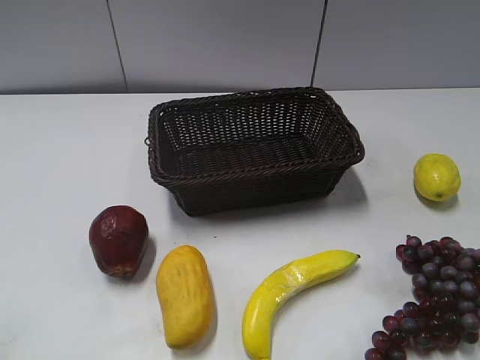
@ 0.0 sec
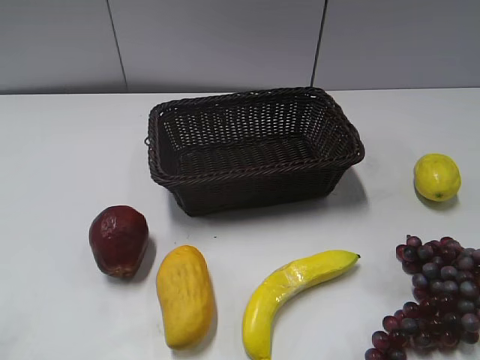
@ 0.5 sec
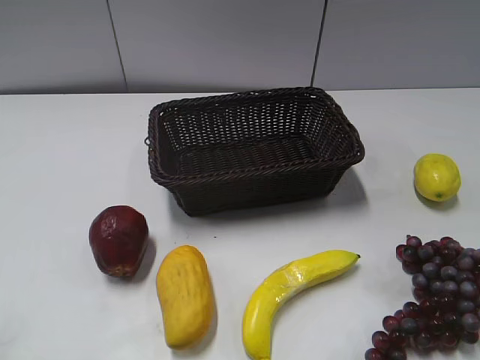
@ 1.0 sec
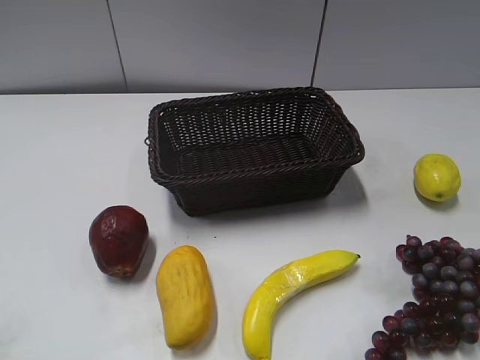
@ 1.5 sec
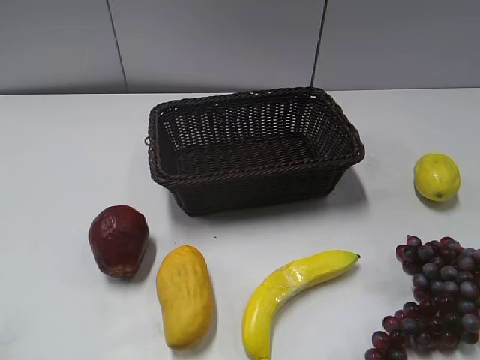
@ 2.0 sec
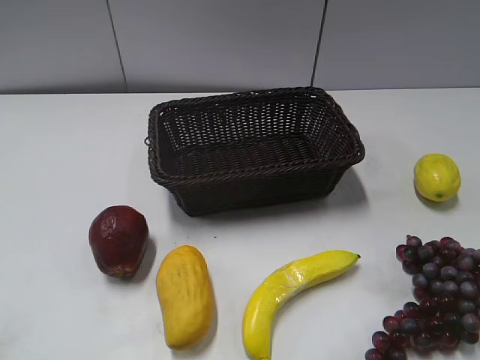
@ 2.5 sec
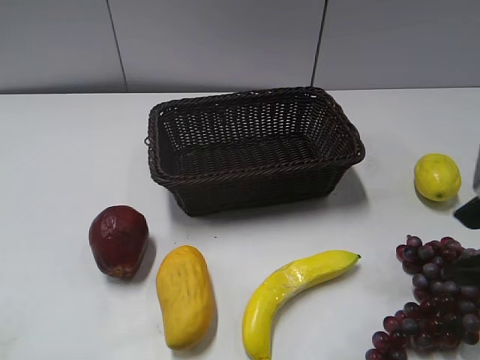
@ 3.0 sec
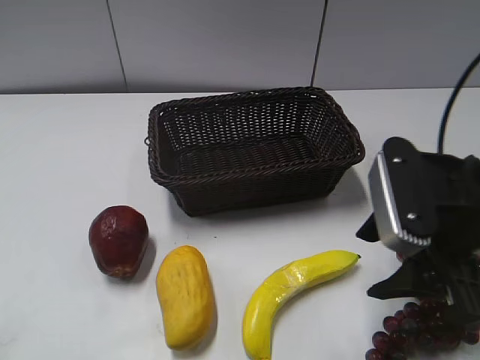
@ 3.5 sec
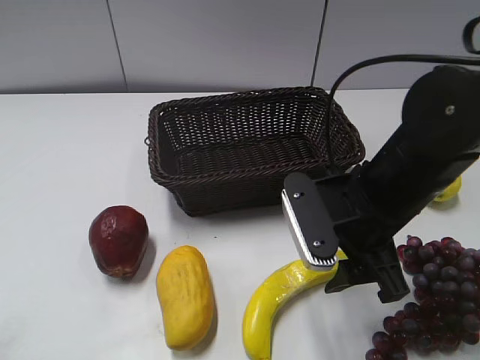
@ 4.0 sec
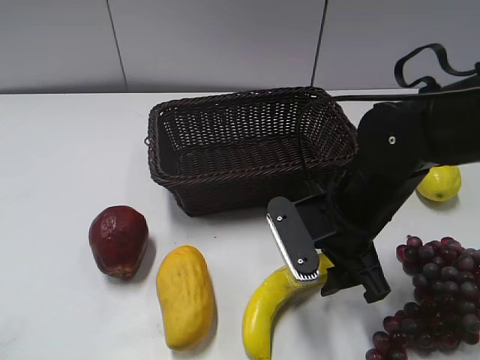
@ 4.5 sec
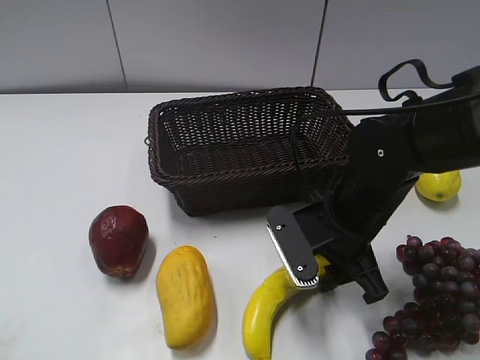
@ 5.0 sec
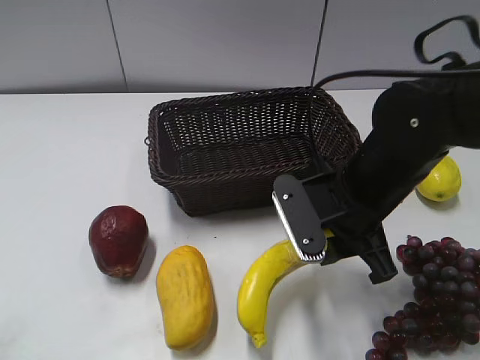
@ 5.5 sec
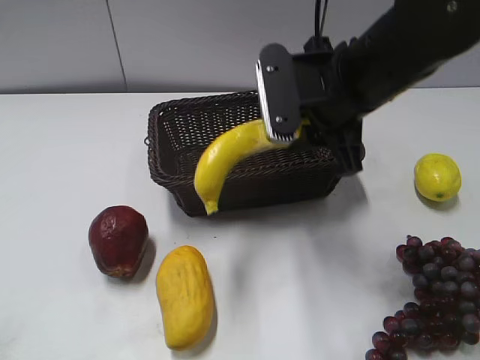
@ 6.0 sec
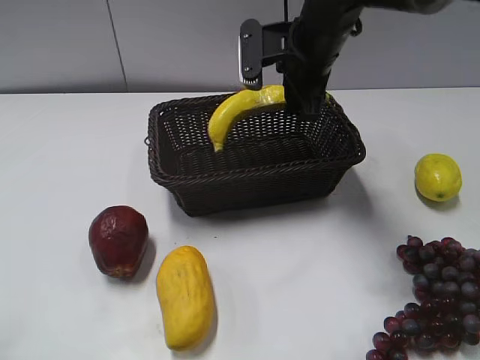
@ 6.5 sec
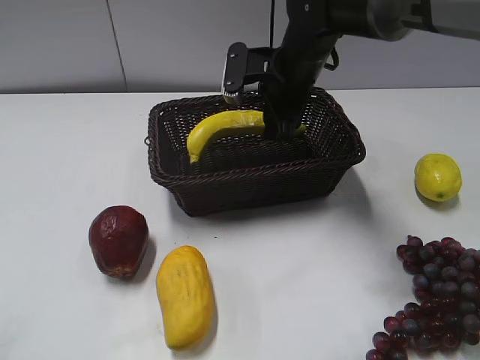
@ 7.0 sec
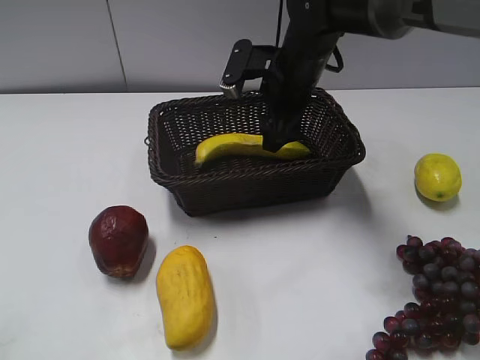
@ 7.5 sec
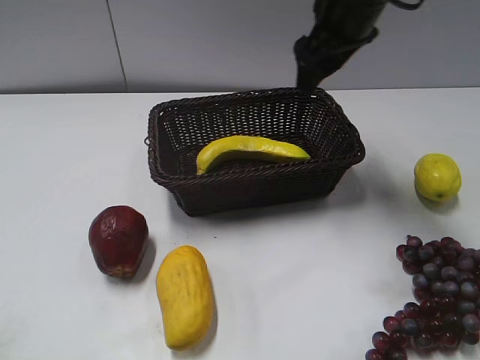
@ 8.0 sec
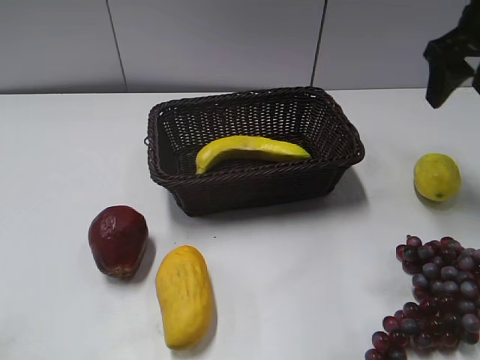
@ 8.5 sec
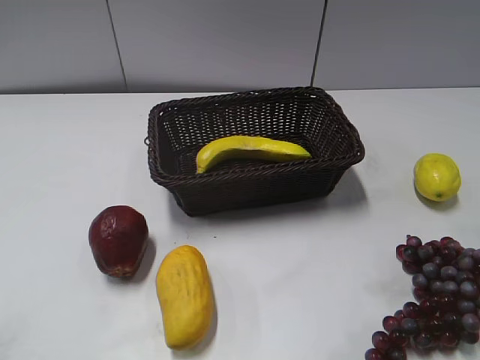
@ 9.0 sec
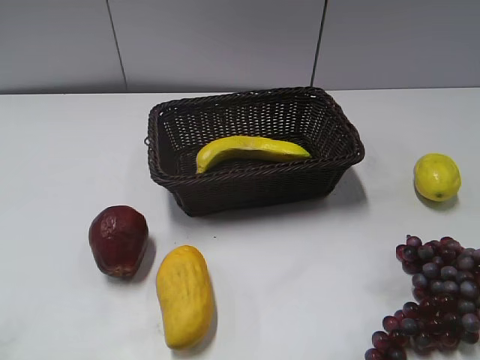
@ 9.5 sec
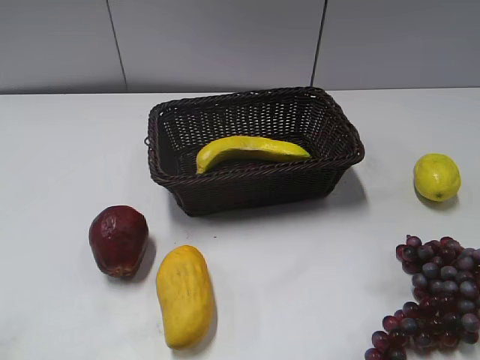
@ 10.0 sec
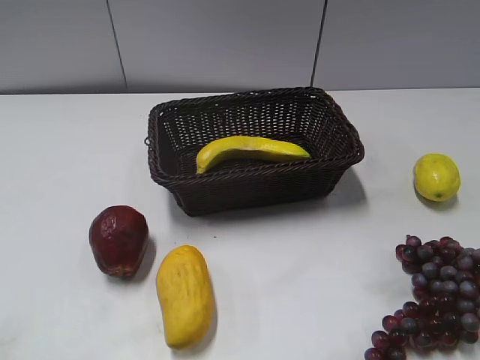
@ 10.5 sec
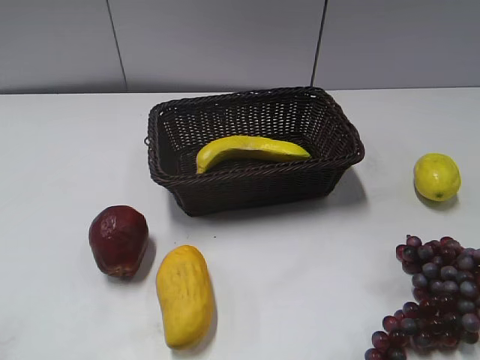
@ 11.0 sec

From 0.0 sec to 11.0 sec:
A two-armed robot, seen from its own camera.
Step, from 3.0 sec to 5.0 sec: Grasp the banana with right gripper.
Step, from 5.5 sec to 7.0 sec: Place the banana in the basket with right gripper.
From 2.0 sec to 3.5 sec: The right gripper is displaced forward and to the left by about 25 cm.
From 3.5 sec to 5.5 sec: The right gripper moves to the left and forward, about 10 cm, and closes up.
From 5.5 sec to 7.5 sec: The right gripper heads forward, covering roughly 15 cm, and opens up.
From 7.5 sec to 9.0 sec: The right gripper is displaced to the right, backward and upward by about 30 cm.
